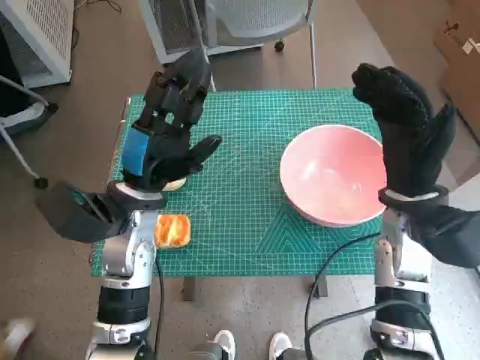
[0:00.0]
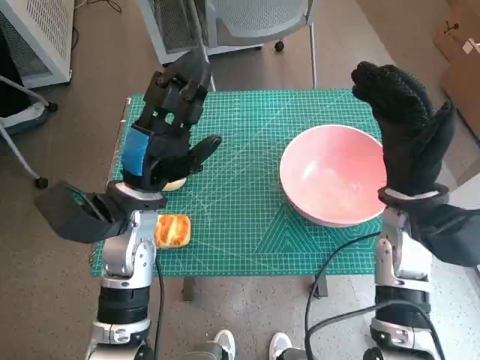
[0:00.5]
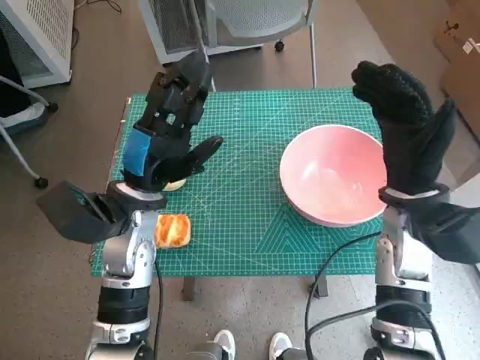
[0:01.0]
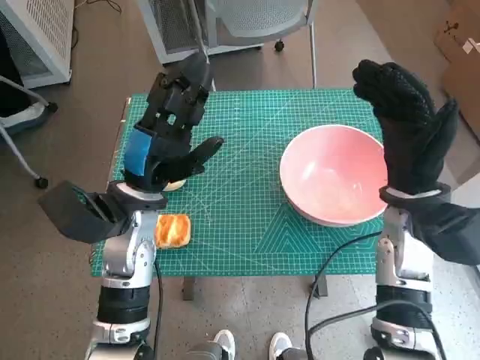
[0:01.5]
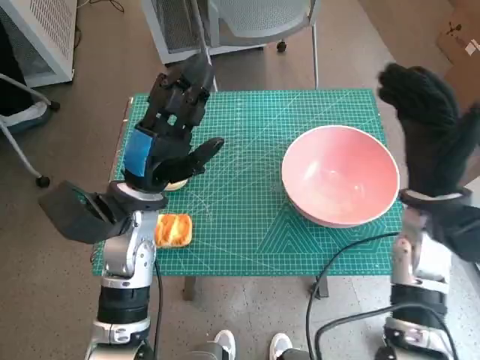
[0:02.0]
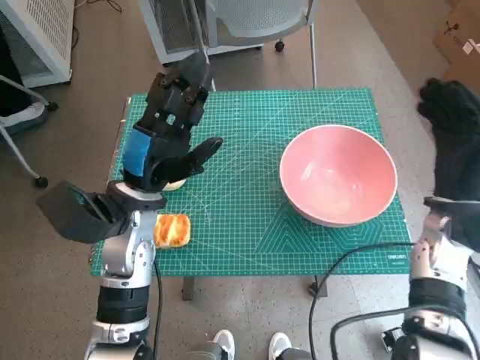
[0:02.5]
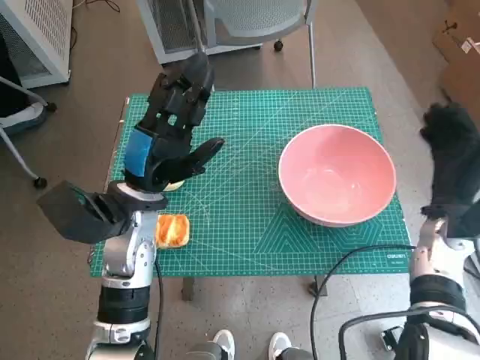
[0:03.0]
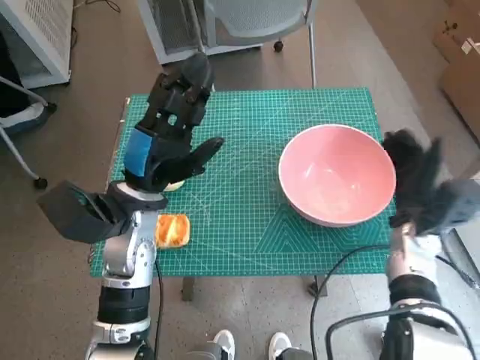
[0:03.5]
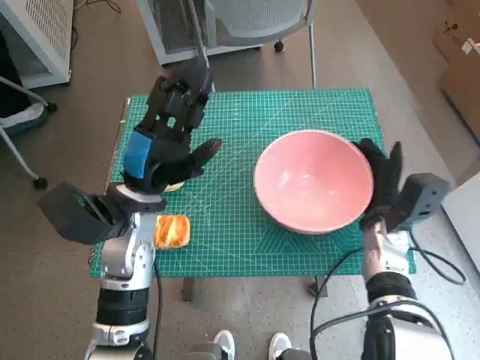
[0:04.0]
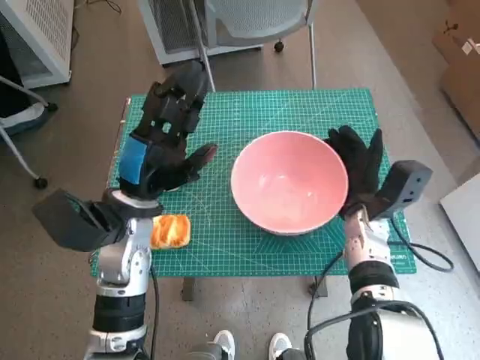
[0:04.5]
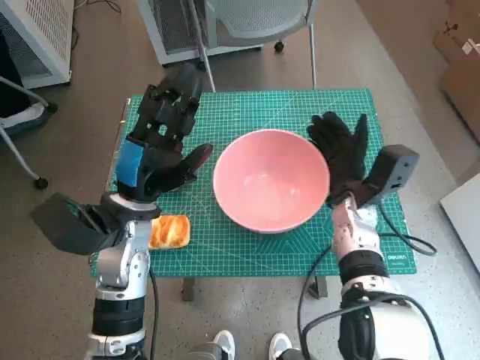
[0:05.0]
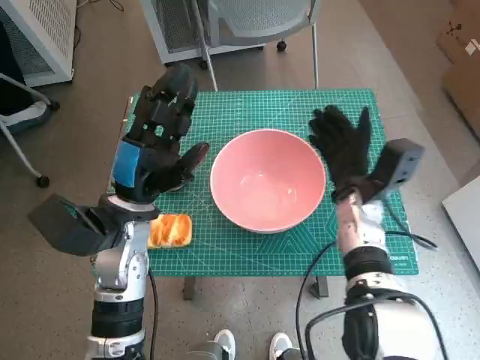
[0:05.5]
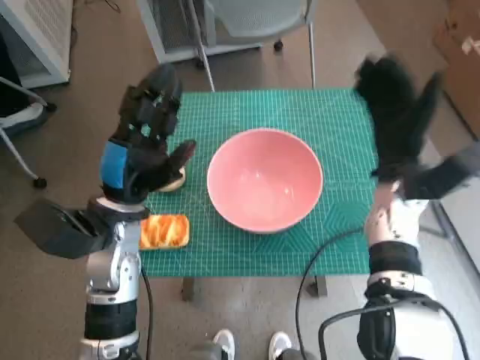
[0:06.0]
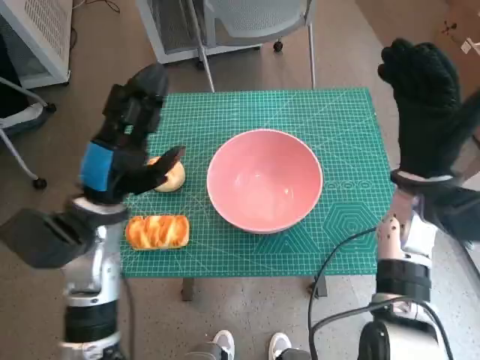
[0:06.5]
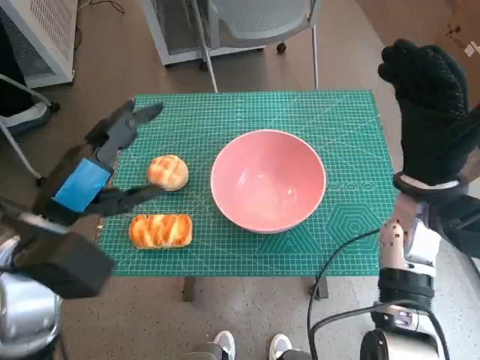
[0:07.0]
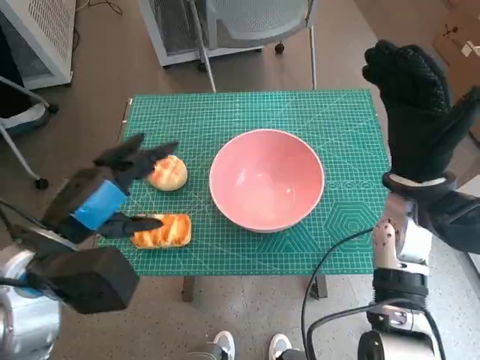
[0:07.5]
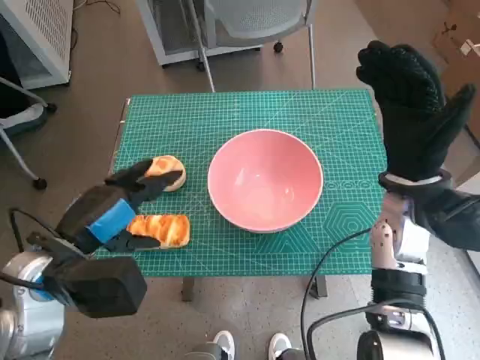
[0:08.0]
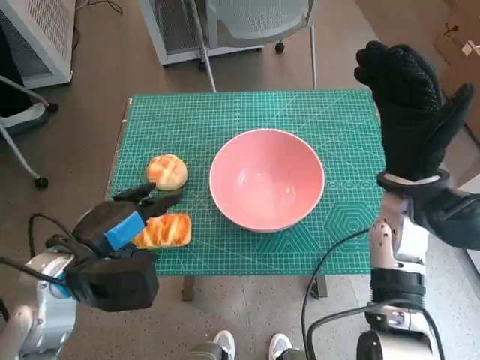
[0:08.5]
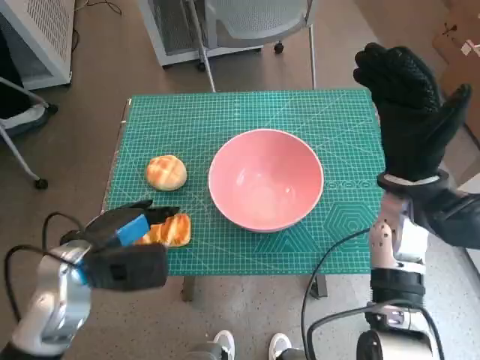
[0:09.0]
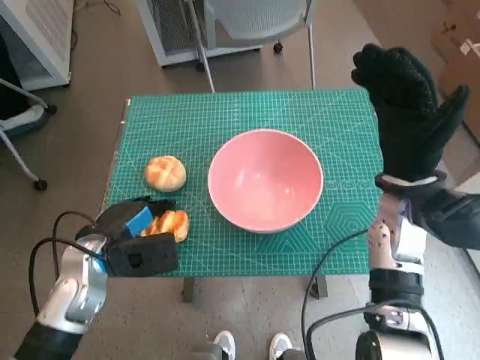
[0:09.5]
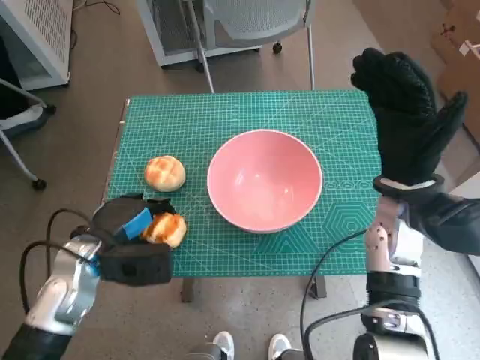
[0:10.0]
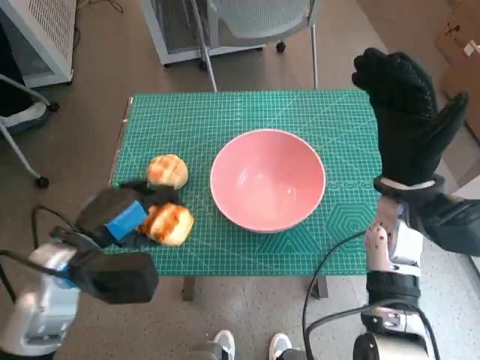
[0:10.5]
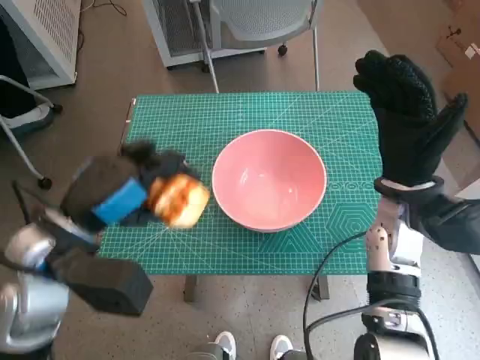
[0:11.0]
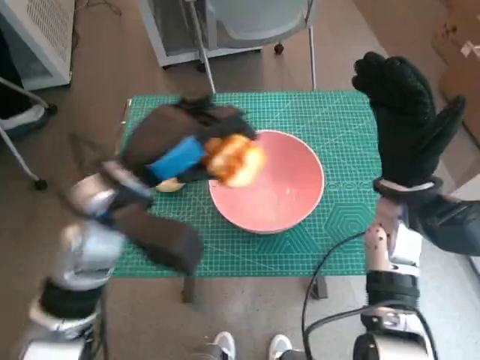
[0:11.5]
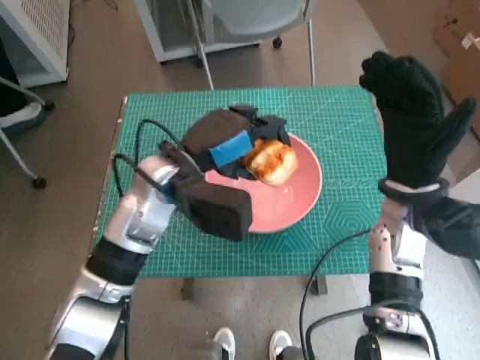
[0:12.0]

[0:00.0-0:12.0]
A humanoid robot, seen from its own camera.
Step, 0:00.0 to 0:05.5: Move the pink bowl to the center of table with right hand.
Step, 0:06.0 to 0:09.5: Grasp the long bread with left hand.
0:02.0 to 0:04.0: The right hand heads downward, covering about 10 cm.
0:04.0 to 0:06.0: The right hand travels upward by some 10 cm.
0:06.0 to 0:08.0: The right hand ends up approximately 5 cm from where it was. The left hand moves backward, about 5 cm.
0:08.0 to 0:10.0: The left hand moves downward, roughly 10 cm.
0:10.0 to 0:12.0: The left hand goes some 15 cm to the right, upward and forward.

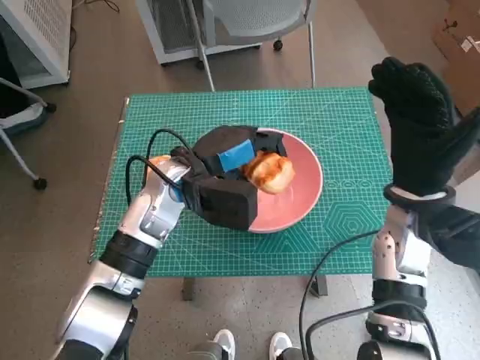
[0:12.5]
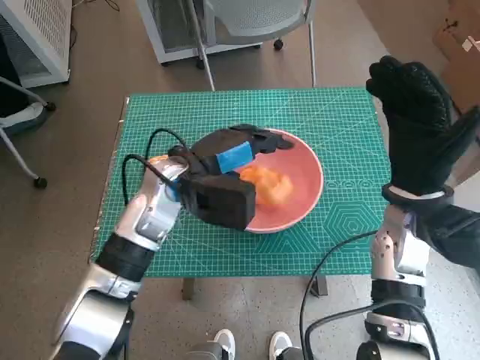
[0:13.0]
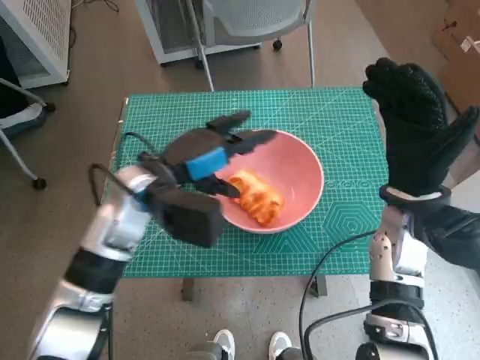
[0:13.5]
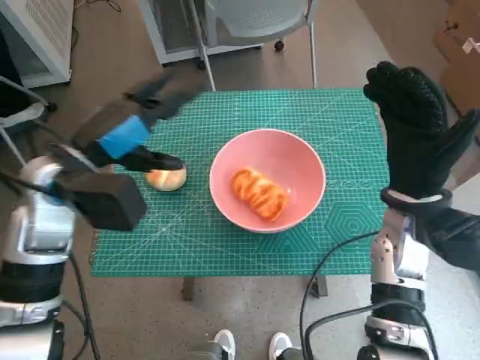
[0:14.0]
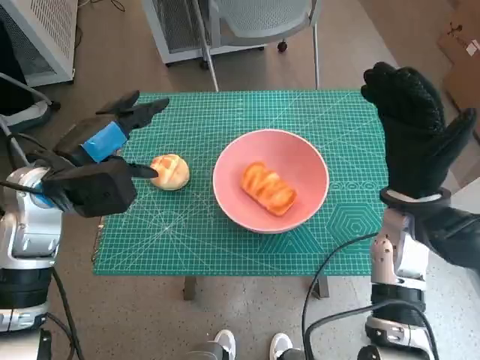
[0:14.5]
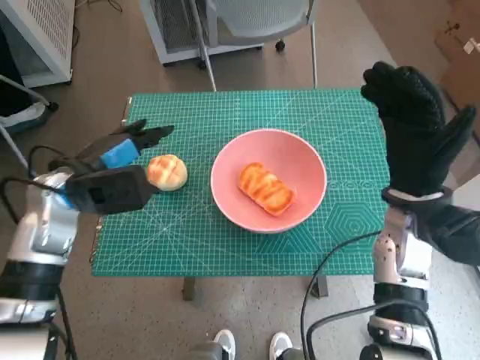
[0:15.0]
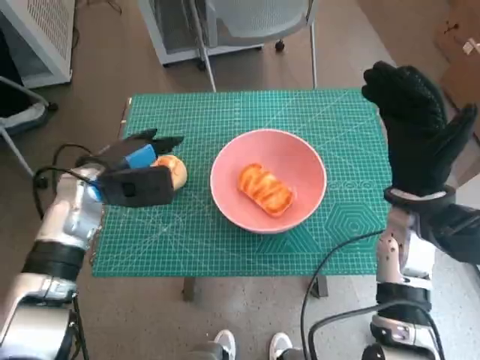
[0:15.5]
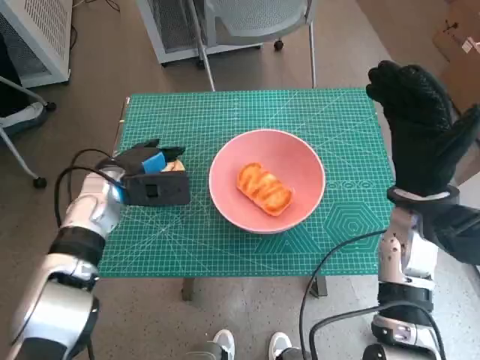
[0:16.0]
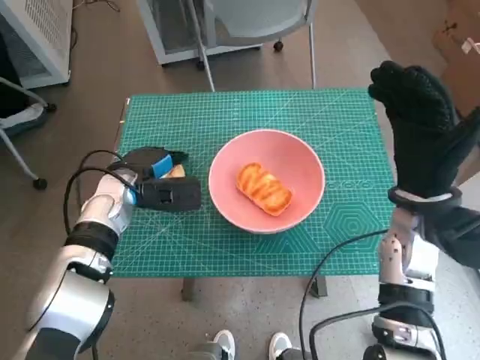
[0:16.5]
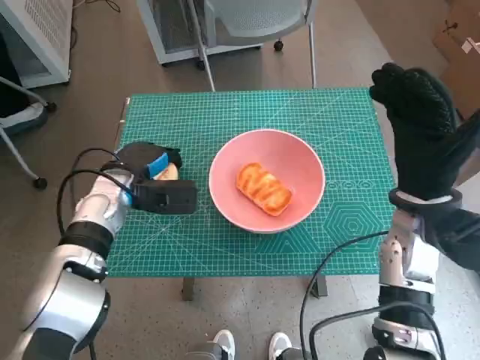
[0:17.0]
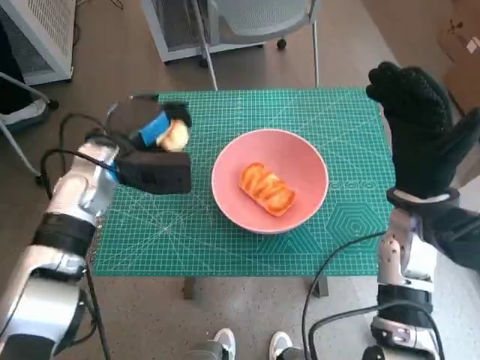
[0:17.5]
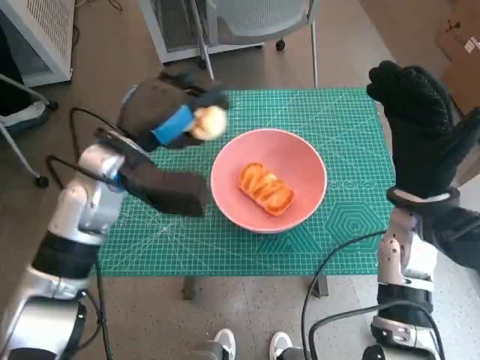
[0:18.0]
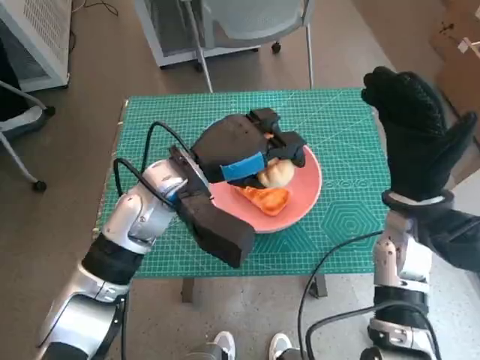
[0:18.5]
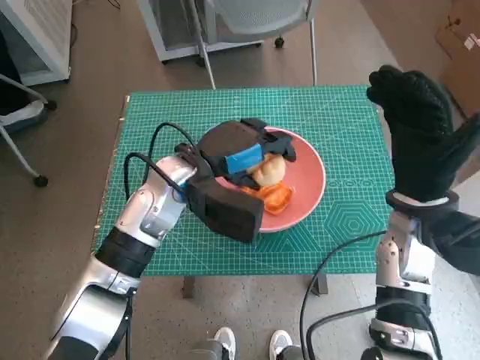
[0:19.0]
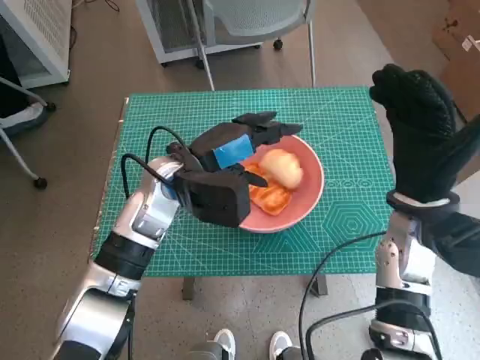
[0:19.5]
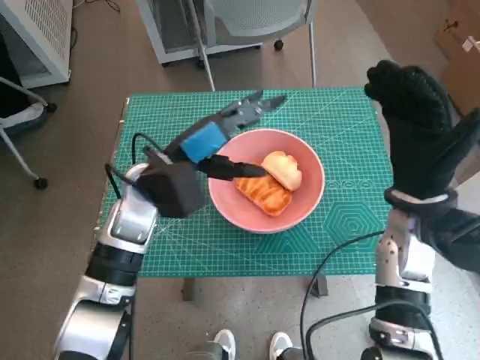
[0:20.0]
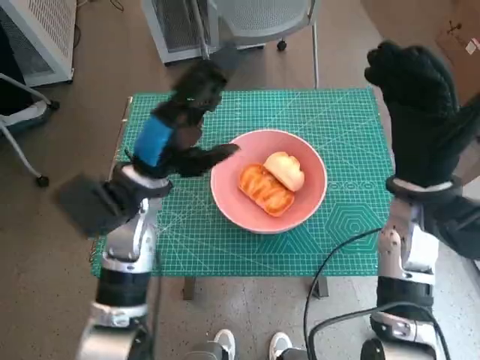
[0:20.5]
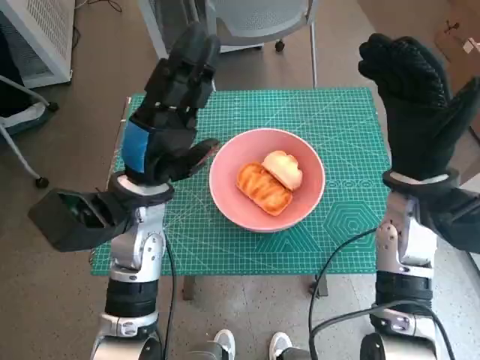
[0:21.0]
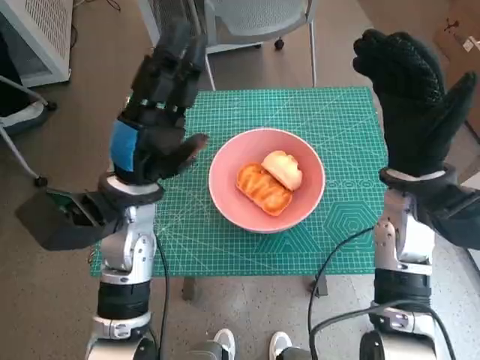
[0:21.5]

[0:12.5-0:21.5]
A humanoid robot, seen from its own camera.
Step, 0:13.5 to 0:16.5: Grasp the round bread with left hand.
Step, 0:17.0 to 0:19.5: Place the round bread in pink bowl with left hand.
0:12.5 to 0:14.5: The left hand heads to the left, covering some 15 cm.
0:14.5 to 0:17.0: The left hand shifts approximately 10 cm downward and forward.
0:17.0 to 0:19.5: The left hand heads to the right and upward, covering approximately 10 cm.
0:19.5 to 0:21.5: The left hand changes place by approximately 5 cm.

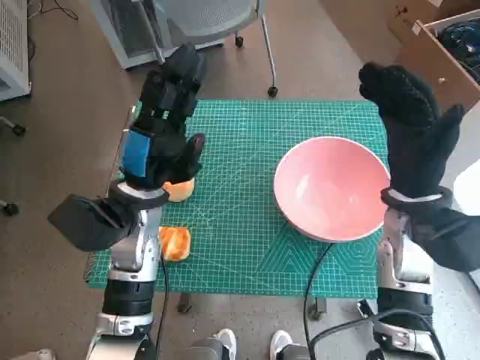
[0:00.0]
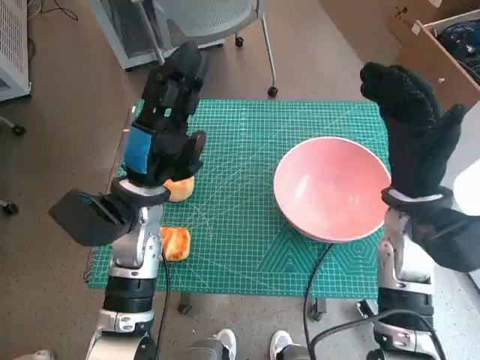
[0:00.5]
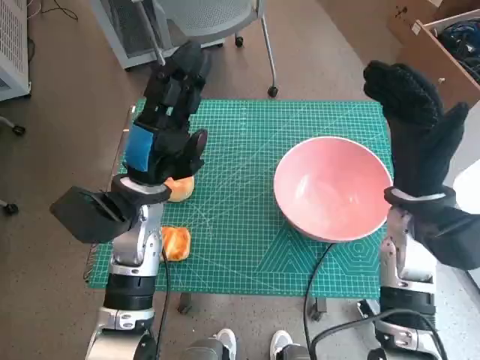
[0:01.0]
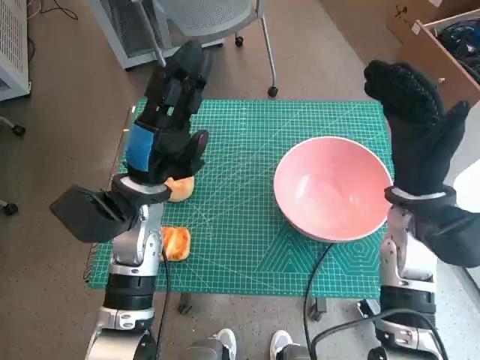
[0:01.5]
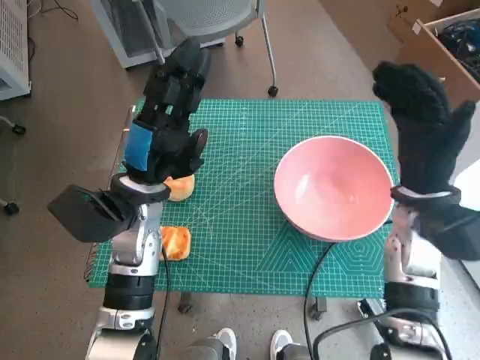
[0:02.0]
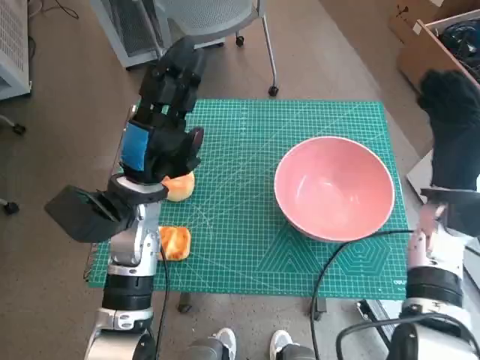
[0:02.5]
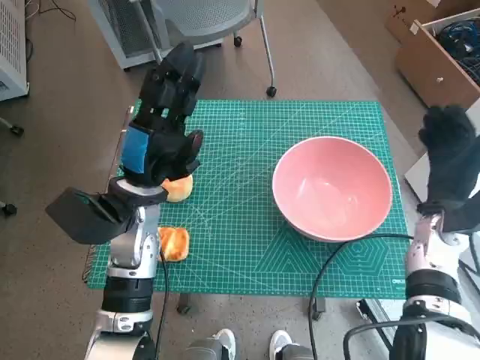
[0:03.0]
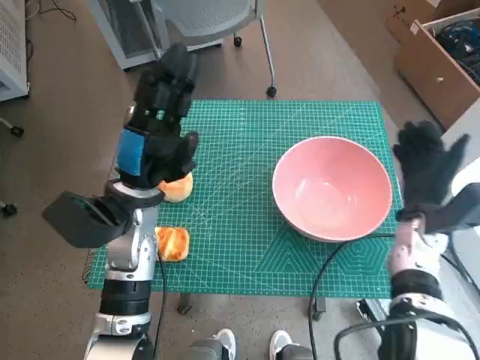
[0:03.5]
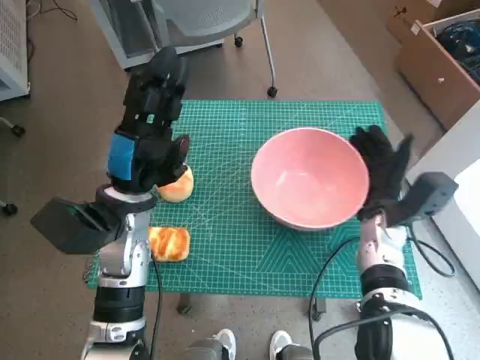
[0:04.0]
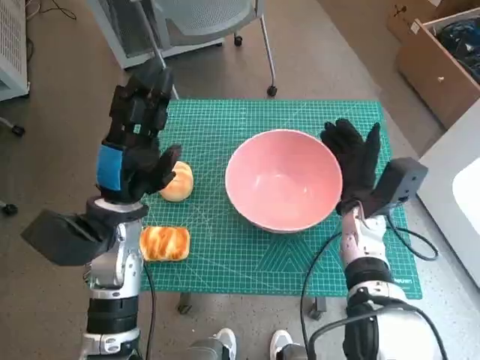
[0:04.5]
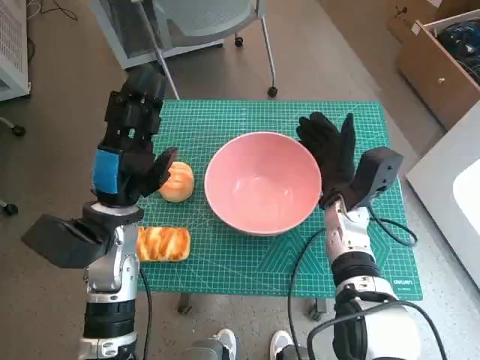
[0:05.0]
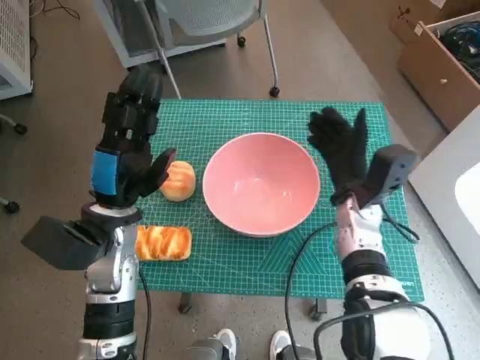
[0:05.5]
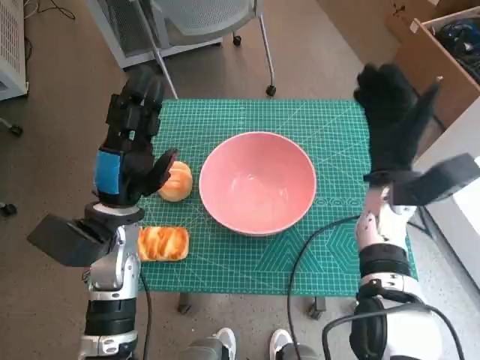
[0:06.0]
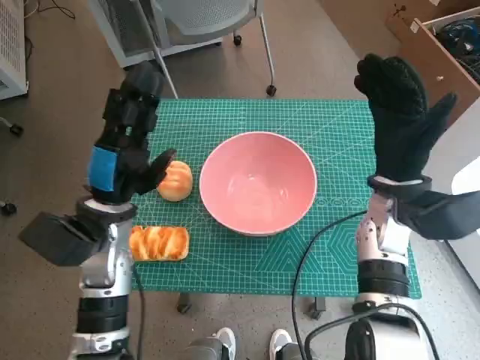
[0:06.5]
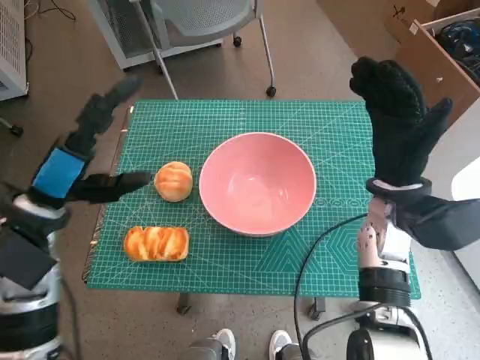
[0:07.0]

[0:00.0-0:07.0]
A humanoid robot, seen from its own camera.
Step, 0:00.0 to 0:05.0: Move the pink bowl to the center of table with right hand.
0:02.0 to 0:03.5: The right hand shifts roughly 10 cm downward.
0:03.5 to 0:05.0: The right hand travels to the left by about 10 cm.
0:05.0 to 0:07.0: The left hand is displaced to the left by approximately 5 cm; the right hand shifts some 5 cm upward.
